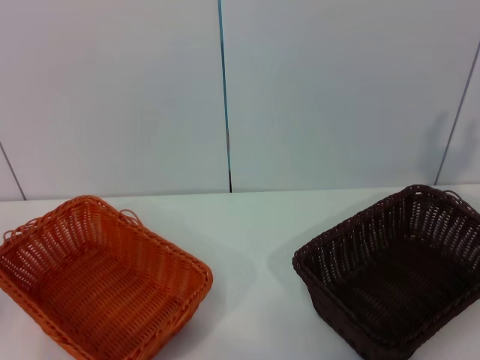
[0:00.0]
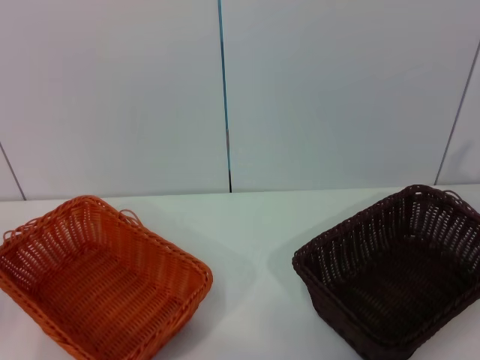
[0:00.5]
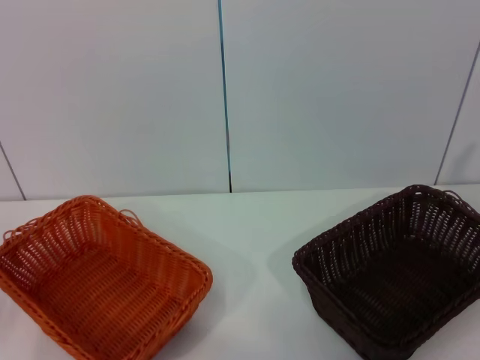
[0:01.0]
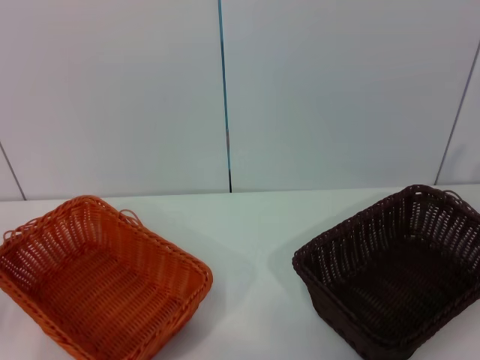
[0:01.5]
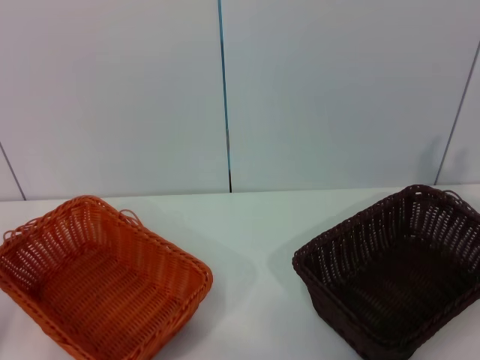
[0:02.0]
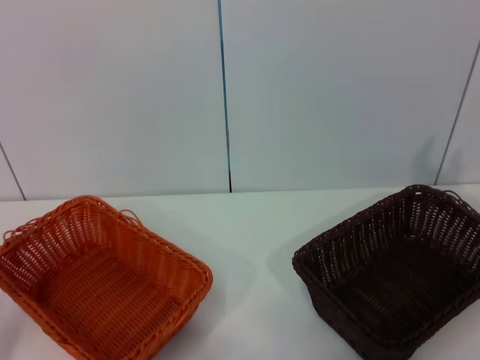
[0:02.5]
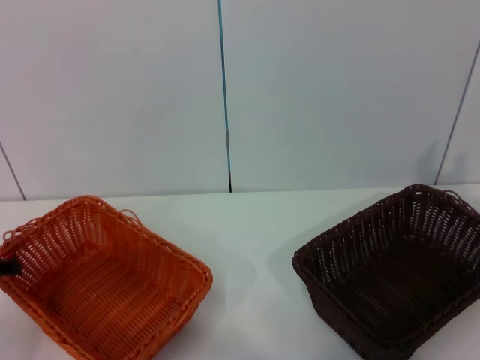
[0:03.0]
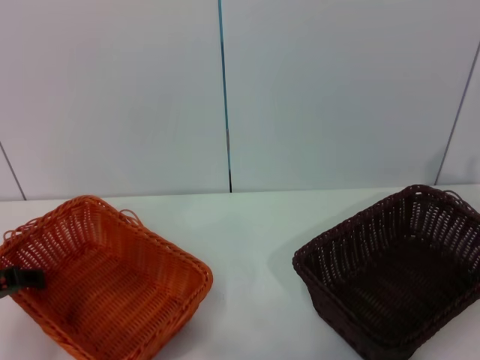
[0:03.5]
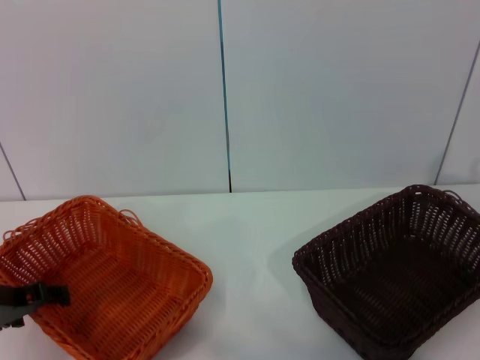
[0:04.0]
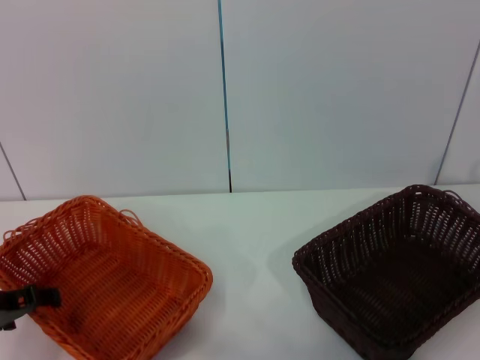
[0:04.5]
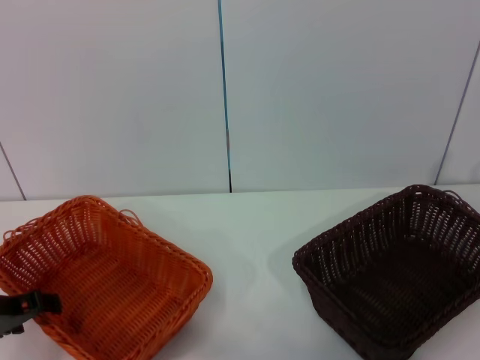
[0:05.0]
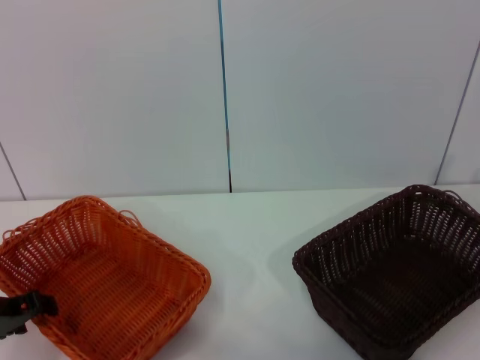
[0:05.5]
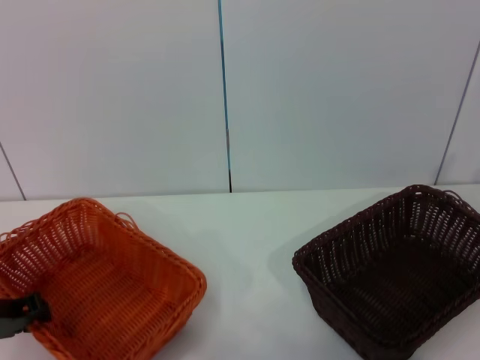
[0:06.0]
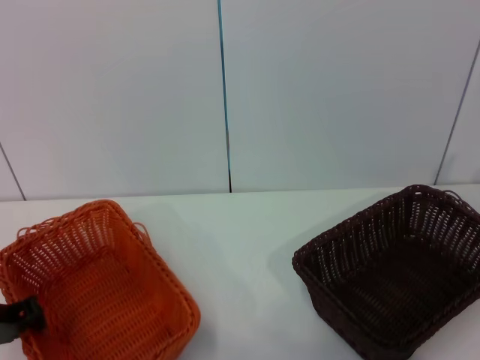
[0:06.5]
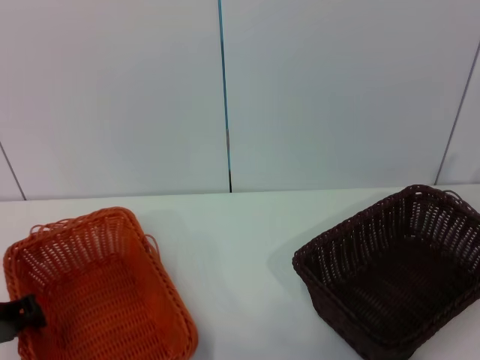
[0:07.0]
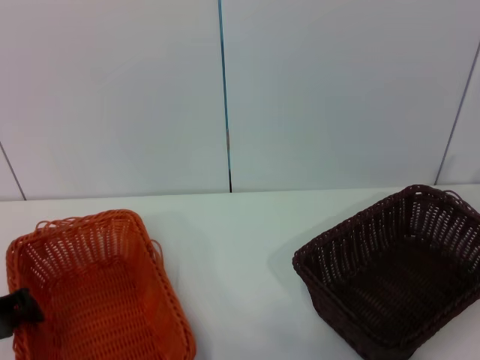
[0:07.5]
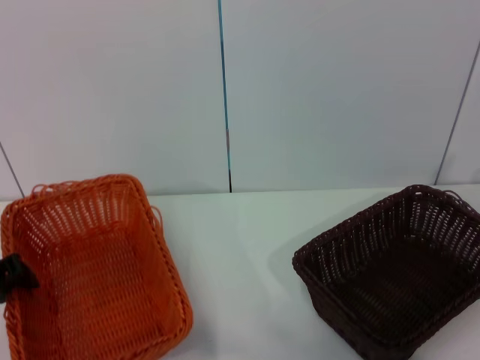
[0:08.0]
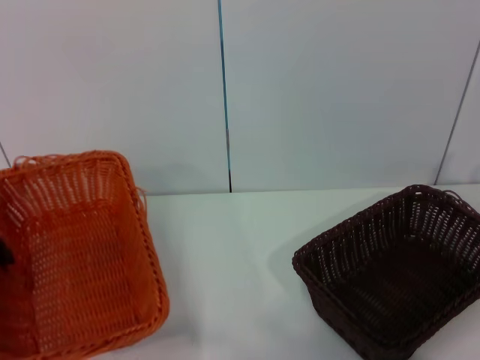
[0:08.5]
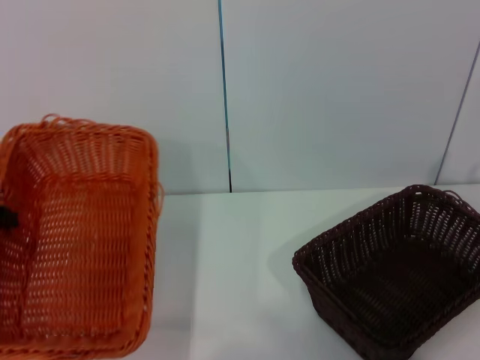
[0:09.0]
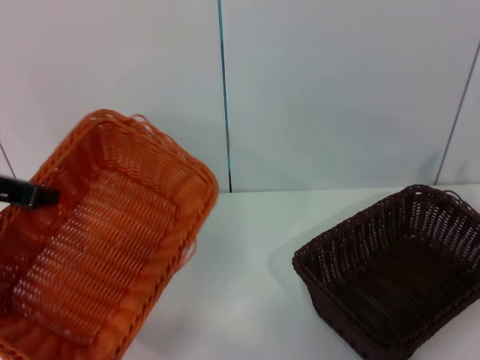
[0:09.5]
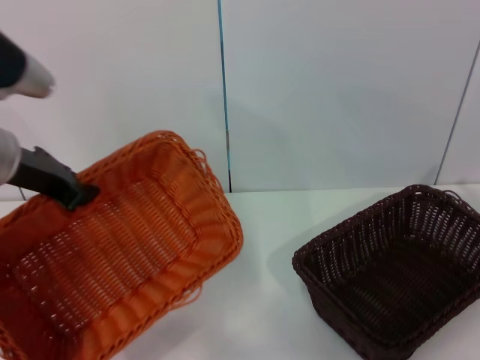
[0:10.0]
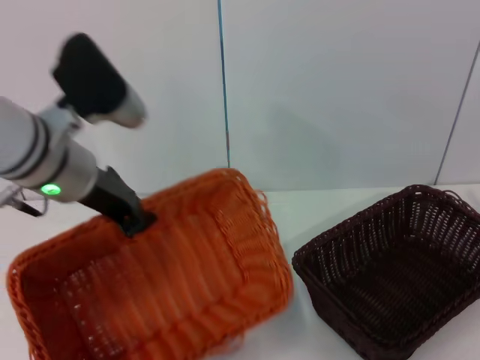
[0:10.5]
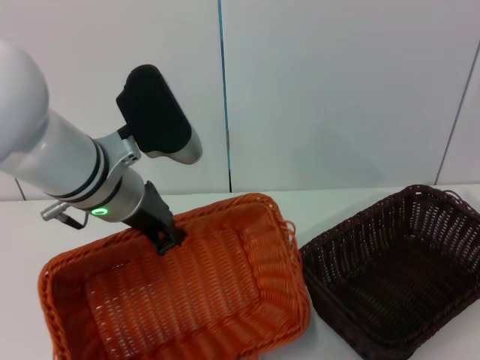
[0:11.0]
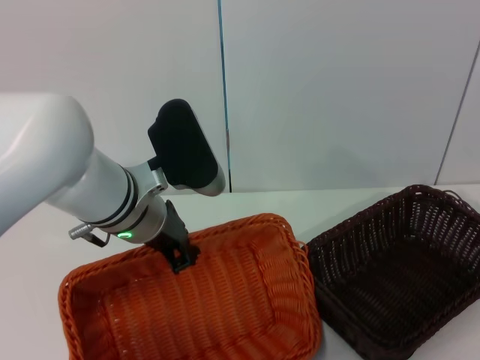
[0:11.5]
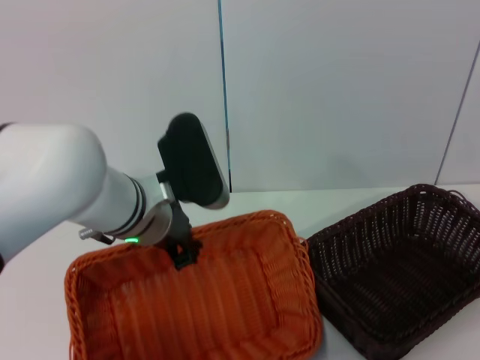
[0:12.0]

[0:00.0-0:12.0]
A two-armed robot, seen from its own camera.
Step, 0.0 to 8.0 s: Pick up the light basket with the left gripper.
2.0 to 4.0 s: The left gripper is displaced to the right and forward by about 10 cm.
4.0 to 6.0 s: The left gripper closes its fingers.
6.0 to 8.0 s: The left gripper changes place by approximately 5 cm, and closes up.
8.0 to 10.0 s: The left gripper heads upward, to the right and forward, covering roughly 15 cm.
10.0 to 12.0 s: The left gripper is displaced to the right and downward by some 15 cm.

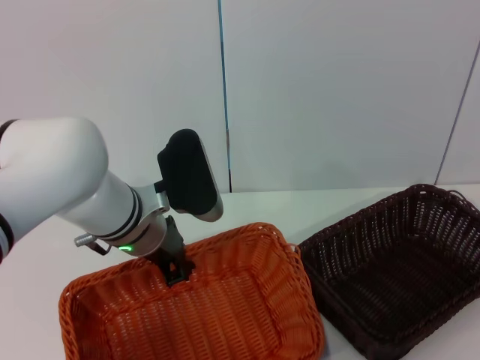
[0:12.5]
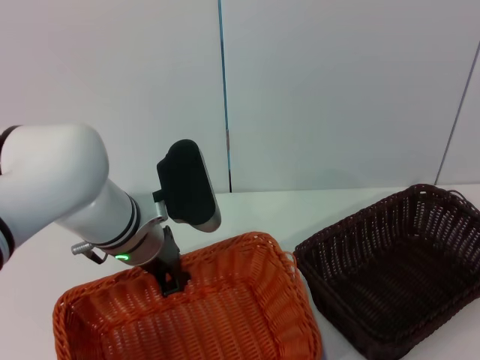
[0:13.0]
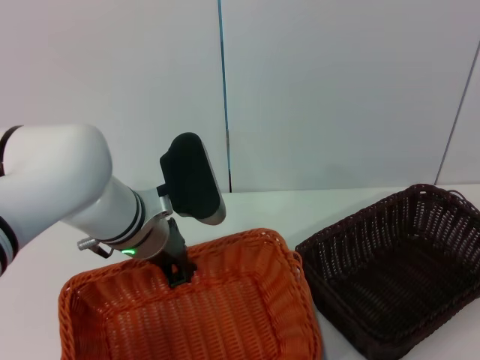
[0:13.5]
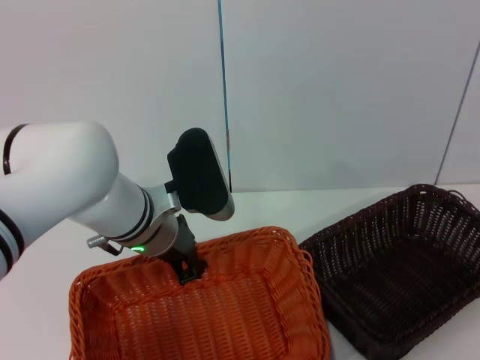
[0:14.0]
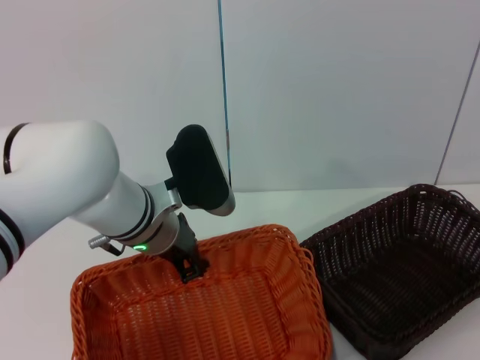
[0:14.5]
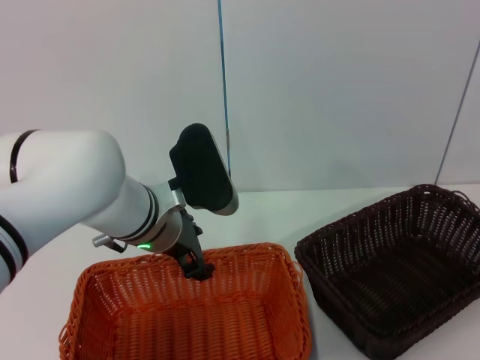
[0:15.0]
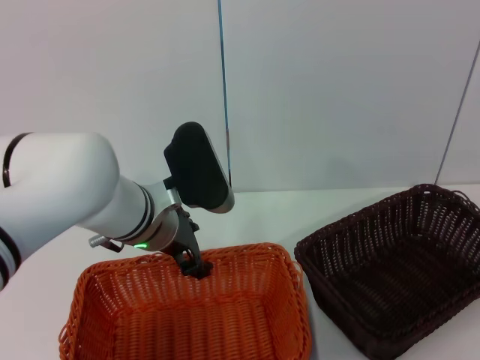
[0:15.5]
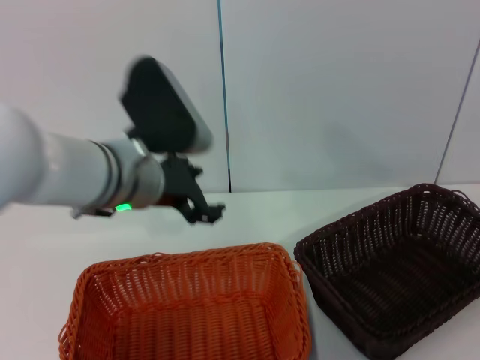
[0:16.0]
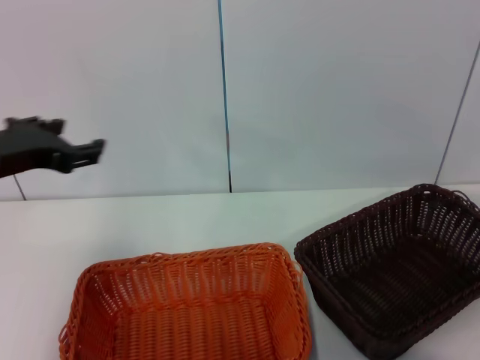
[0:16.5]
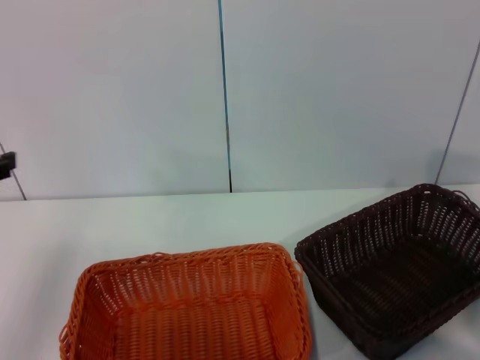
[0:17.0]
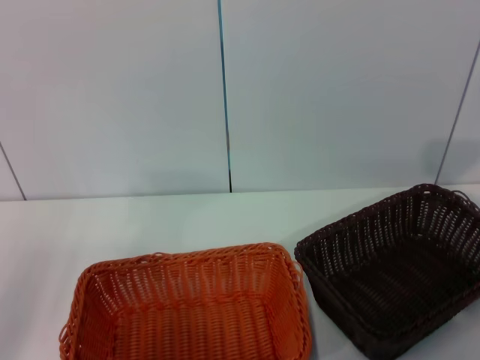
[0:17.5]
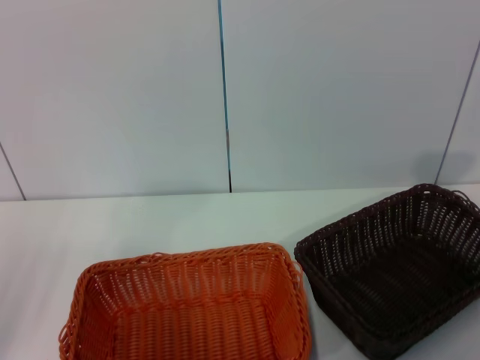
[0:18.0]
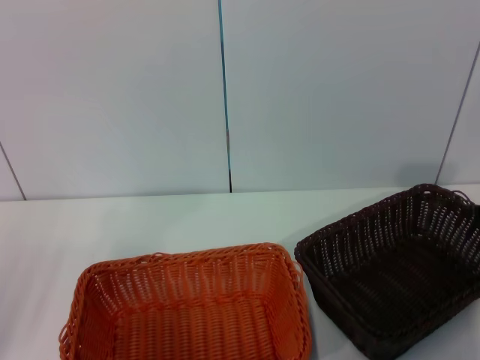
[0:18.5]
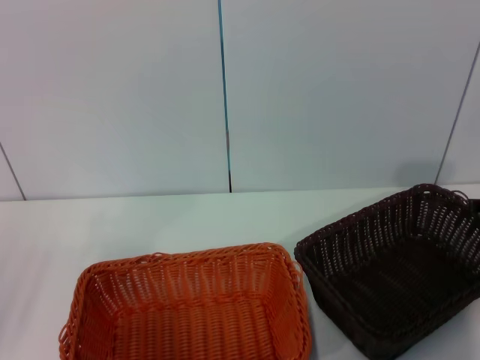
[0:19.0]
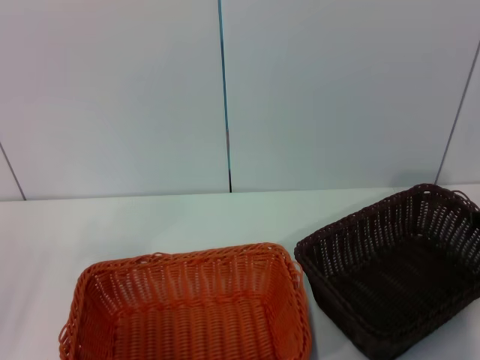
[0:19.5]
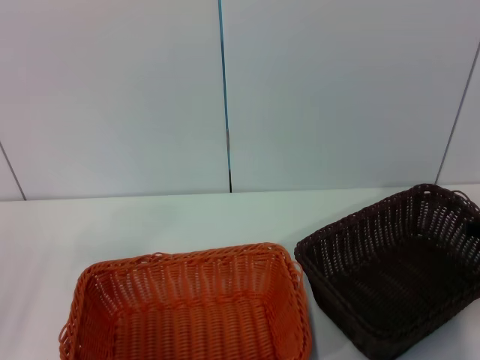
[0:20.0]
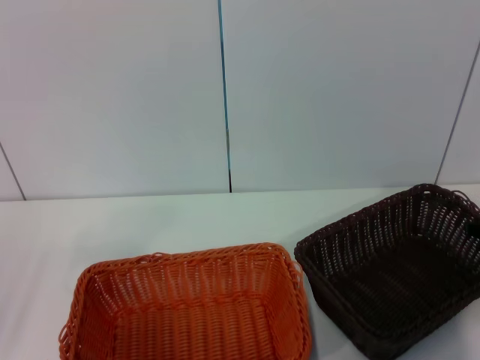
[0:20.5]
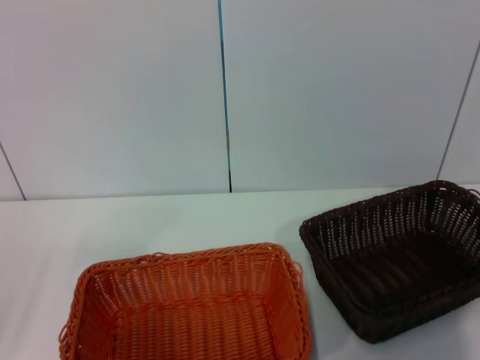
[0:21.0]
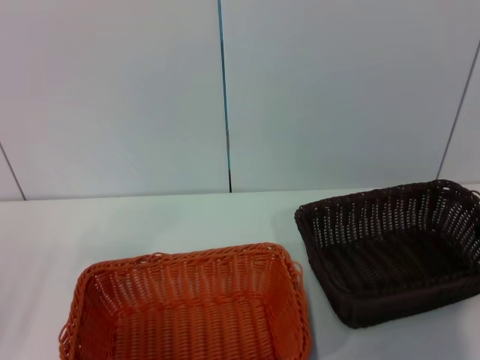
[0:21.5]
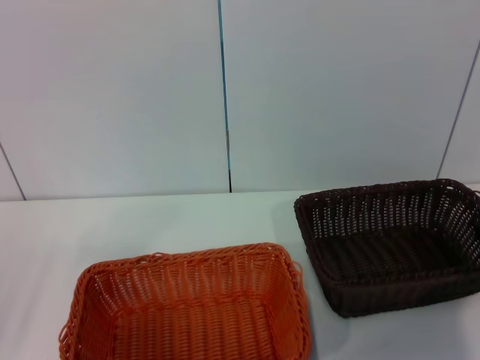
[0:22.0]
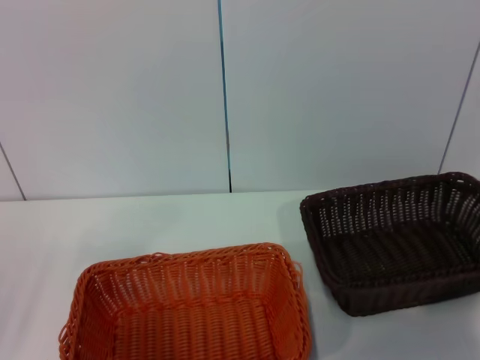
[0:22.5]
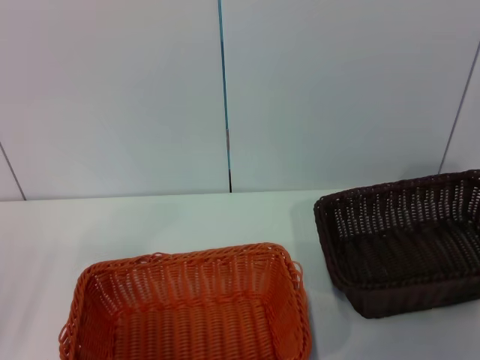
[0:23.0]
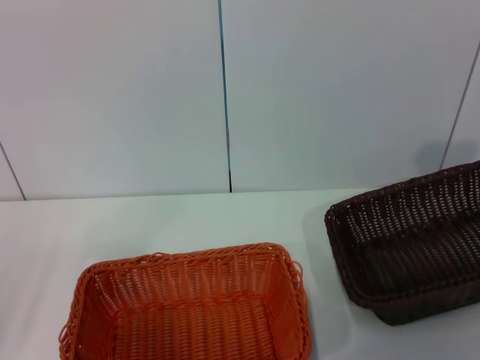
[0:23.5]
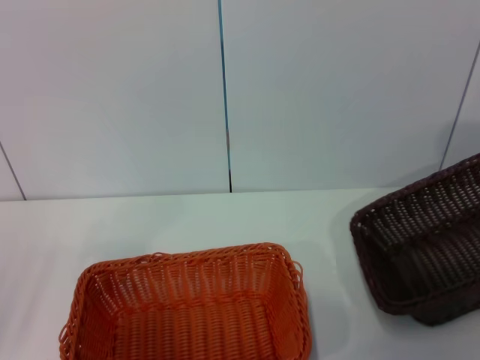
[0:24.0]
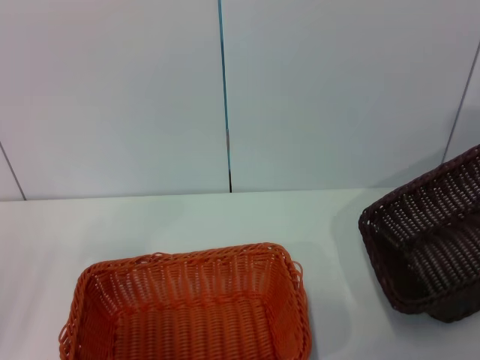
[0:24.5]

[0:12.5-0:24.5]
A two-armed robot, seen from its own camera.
Step, 12.5 to 14.5 s: Place the light basket in the center of view with the left gripper.
Step, 15.0 to 22.0 s: Pick up the dark basket with the right gripper.
12.5 to 14.5 s: Both grippers stay put.
14.5 to 16.5 s: The right gripper ends up roughly 5 cm from where it was. Meanwhile the left gripper shifts some 20 cm to the left and upward, and opens up.
16.5 to 18.5 s: The right gripper shifts about 5 cm forward. The left gripper travels to the left and backward by approximately 15 cm.
20.5 to 22.5 s: The right gripper closes up.
22.5 to 24.5 s: The right gripper heads upward and to the right, covering some 15 cm.

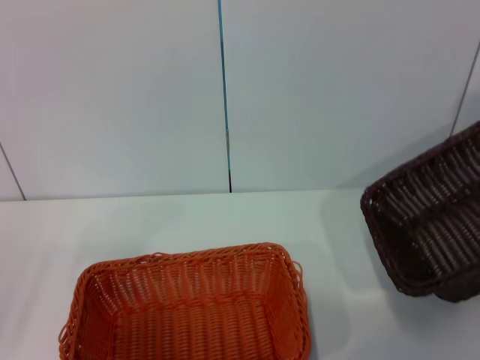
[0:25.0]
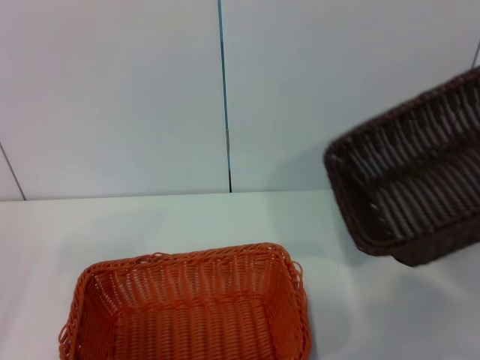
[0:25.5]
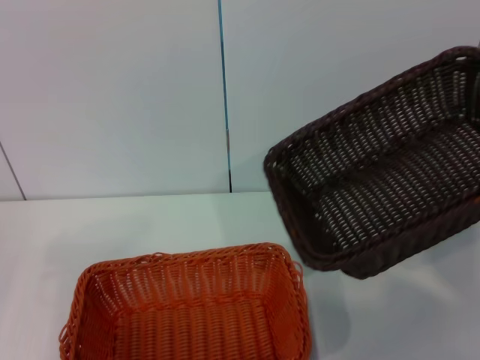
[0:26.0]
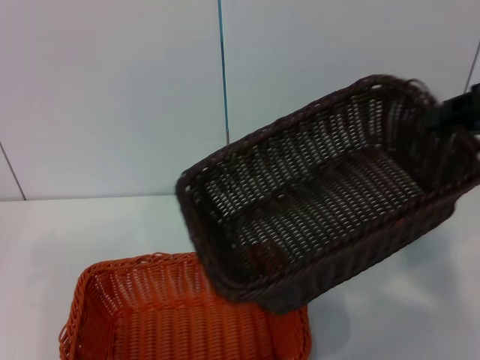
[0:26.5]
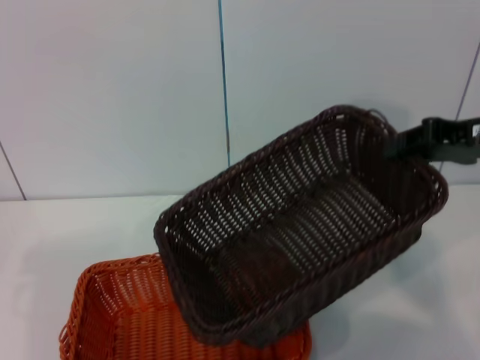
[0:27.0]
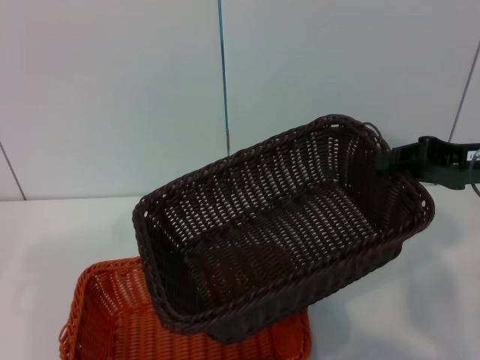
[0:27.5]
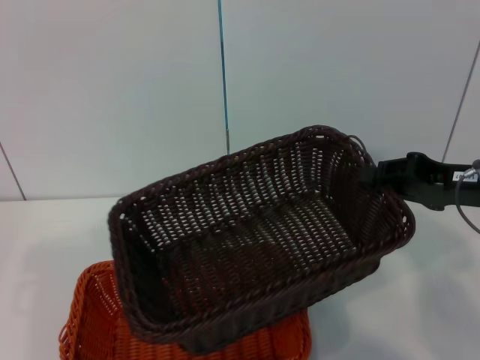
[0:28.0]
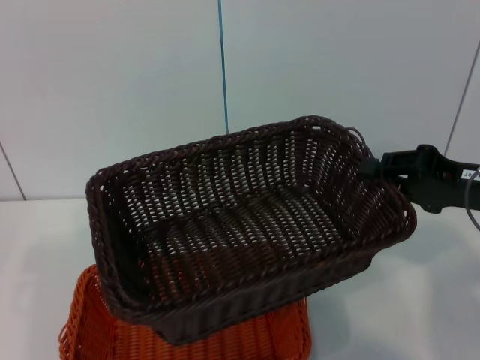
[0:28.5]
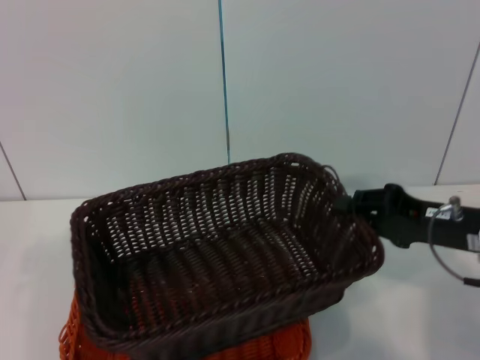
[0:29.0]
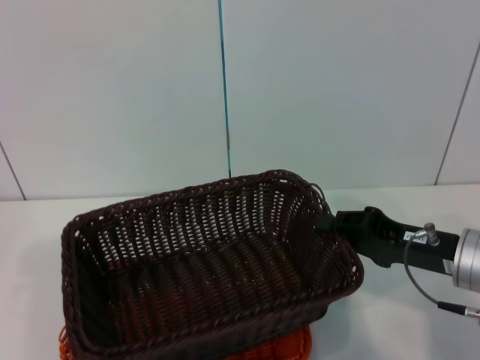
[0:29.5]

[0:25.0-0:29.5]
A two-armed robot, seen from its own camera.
25.0 to 27.0 s: The left gripper heads to the left, covering approximately 5 cm; the right gripper heads to the left, covering approximately 15 cm.
27.0 to 29.5 s: The right gripper travels downward by approximately 15 cm.
